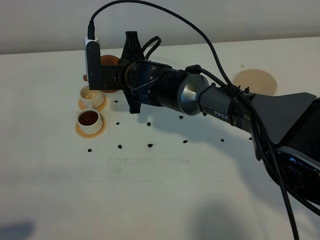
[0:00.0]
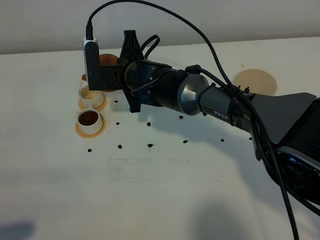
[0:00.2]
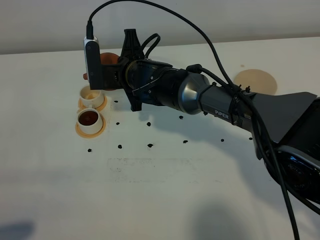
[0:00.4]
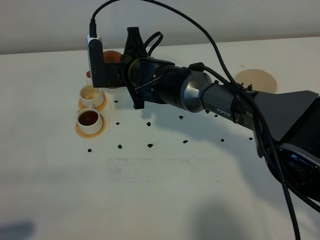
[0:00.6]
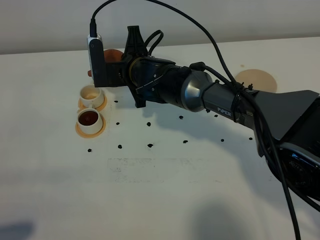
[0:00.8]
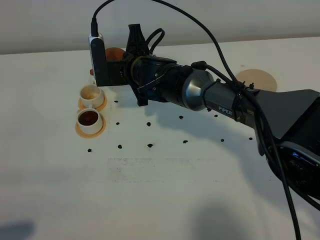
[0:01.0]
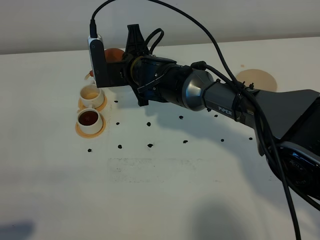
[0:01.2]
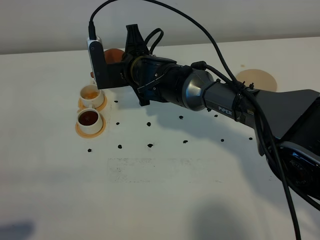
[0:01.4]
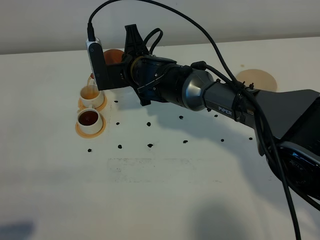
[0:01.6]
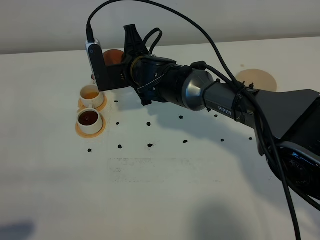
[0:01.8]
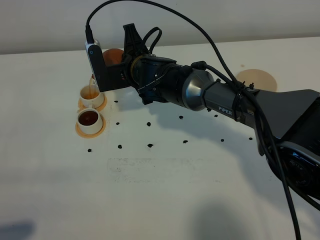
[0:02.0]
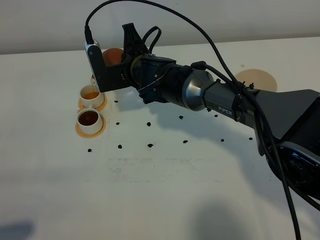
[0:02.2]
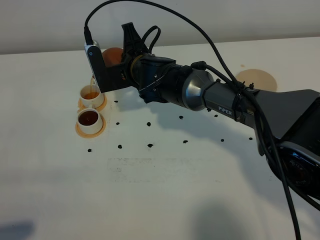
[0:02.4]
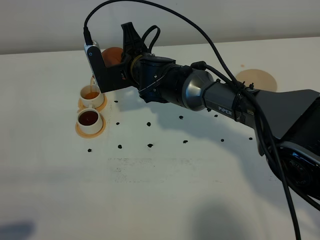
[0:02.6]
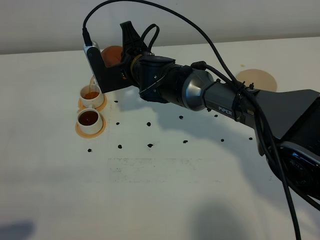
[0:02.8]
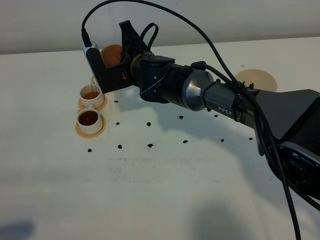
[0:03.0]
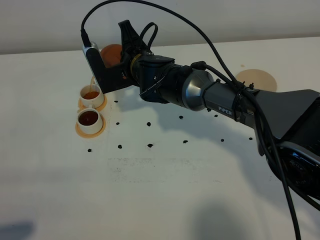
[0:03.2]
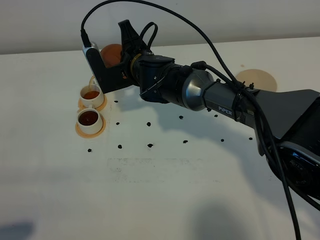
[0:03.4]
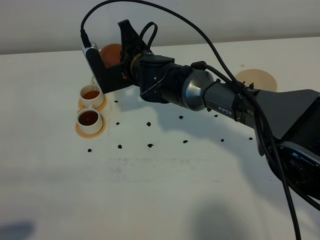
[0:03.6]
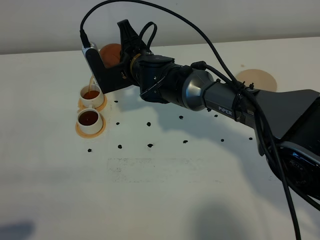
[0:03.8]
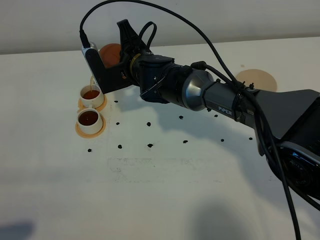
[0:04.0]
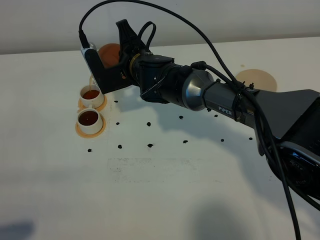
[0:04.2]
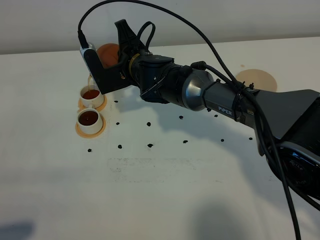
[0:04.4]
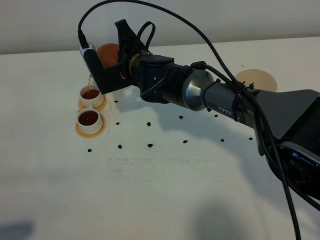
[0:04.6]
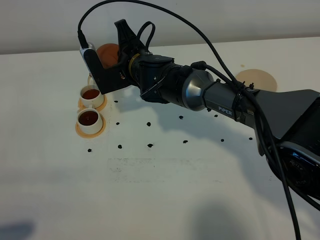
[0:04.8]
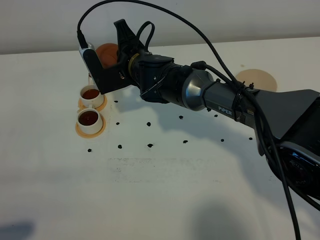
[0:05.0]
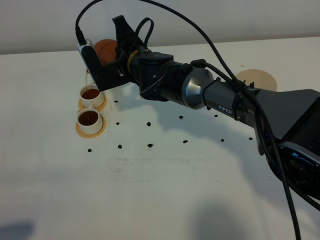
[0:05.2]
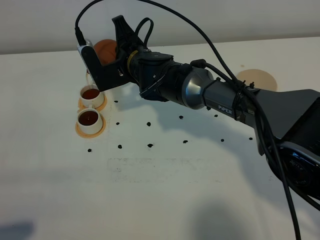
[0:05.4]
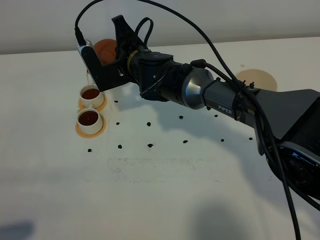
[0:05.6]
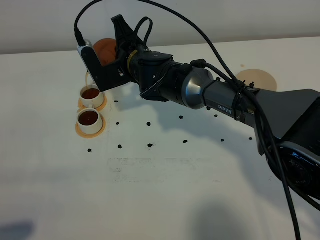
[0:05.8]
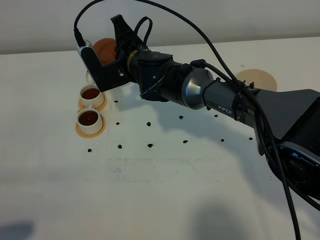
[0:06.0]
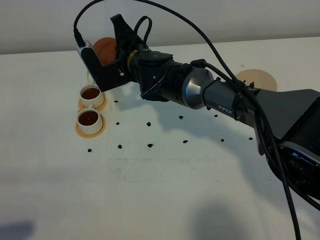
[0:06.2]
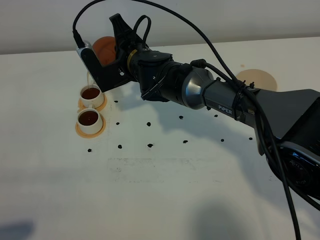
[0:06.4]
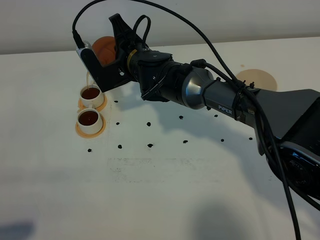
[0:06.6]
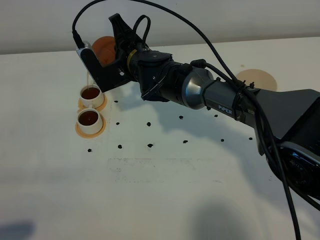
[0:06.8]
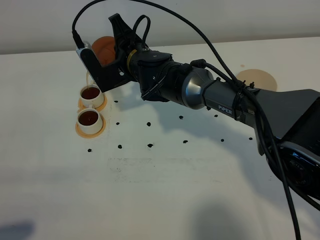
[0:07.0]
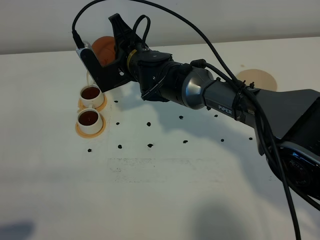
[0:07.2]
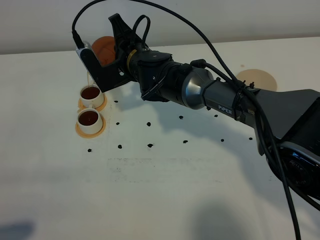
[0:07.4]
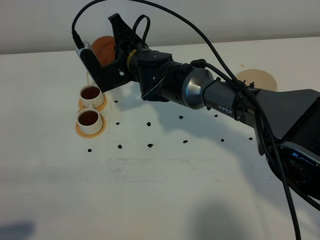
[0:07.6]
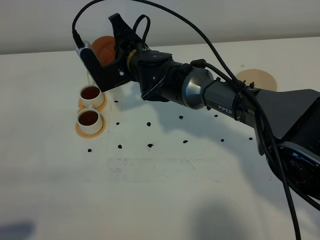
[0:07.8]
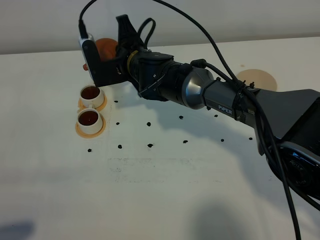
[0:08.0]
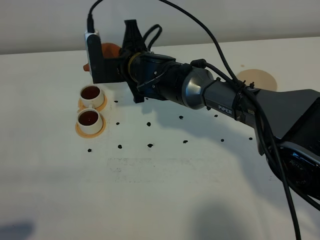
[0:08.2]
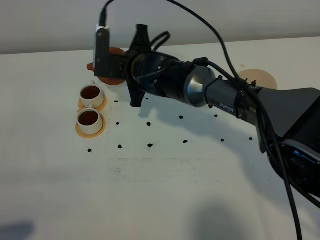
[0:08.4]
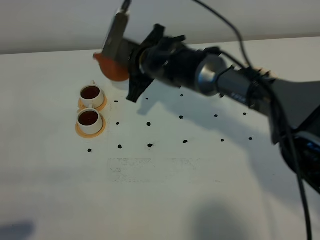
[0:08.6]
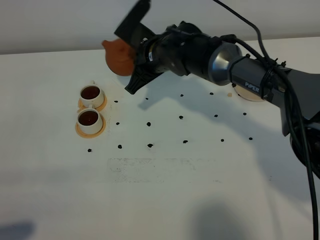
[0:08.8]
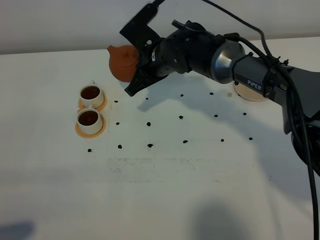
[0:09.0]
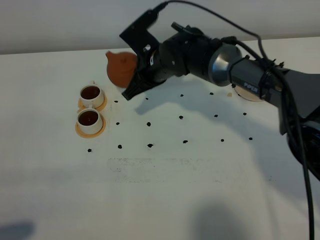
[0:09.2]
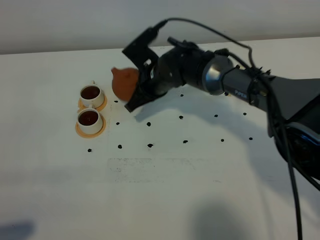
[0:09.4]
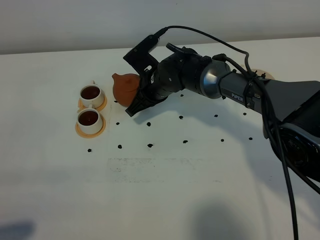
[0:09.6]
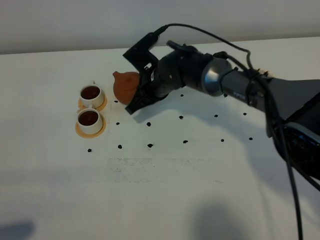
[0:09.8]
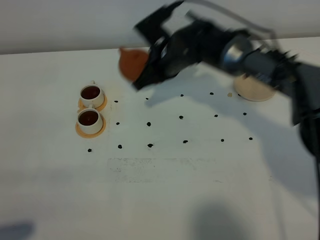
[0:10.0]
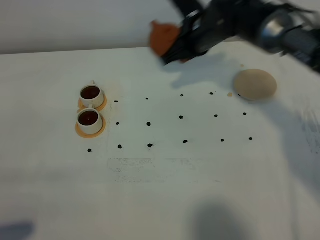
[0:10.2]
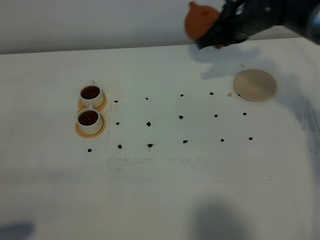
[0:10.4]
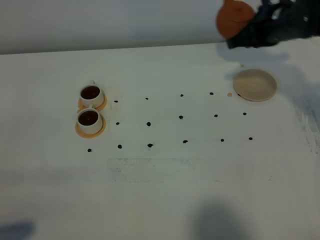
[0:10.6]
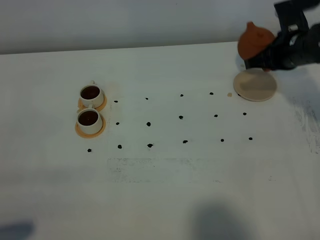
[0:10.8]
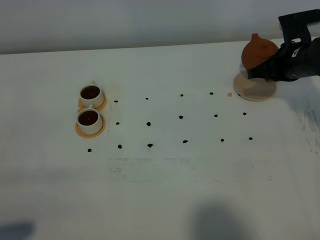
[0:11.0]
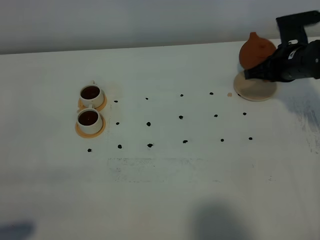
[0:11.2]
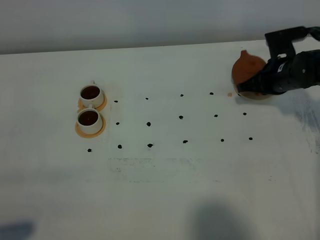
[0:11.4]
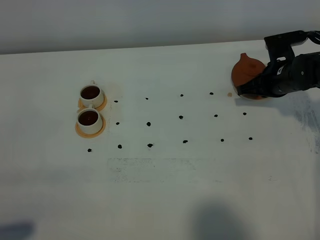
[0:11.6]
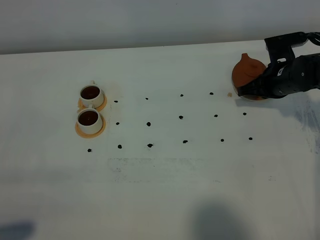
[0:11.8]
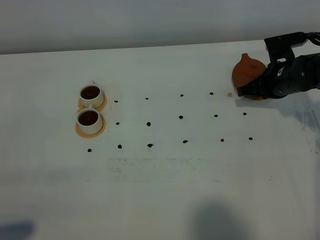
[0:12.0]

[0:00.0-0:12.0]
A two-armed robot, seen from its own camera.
Task of the whole recording: grasp the brown teapot and pour the tea into the two white teacups one by one, put the brown teapot back in its original place.
Step, 0:00.0 to 0:08.0: Pour tea into the teacup with the right gripper.
0:00.0 to 0:01.6: The grippers move only a little.
0:01.6 to 0:03.0: There are only small adjustments of the grippers.
0:03.0 to 0:04.4: Both grippers stay about where they are.
0:04.4 to 0:06.0: Both grippers stay about where they are.
0:06.0 to 0:07.6: The two grippers keep their place.
0:09.0 to 0:10.4: The right gripper heads to the right, covering roughly 15 cm.
0:10.4 to 0:12.0: The right gripper shifts approximately 15 cm downward and to the right.

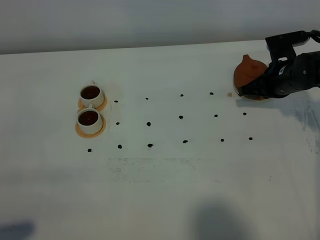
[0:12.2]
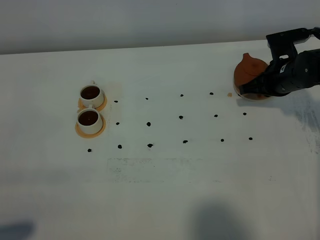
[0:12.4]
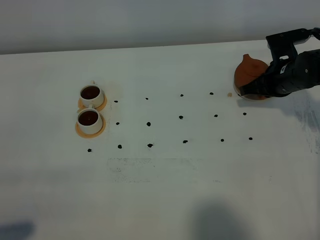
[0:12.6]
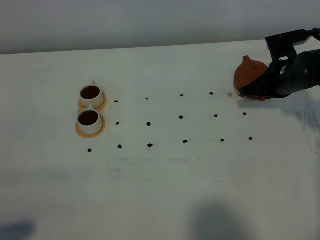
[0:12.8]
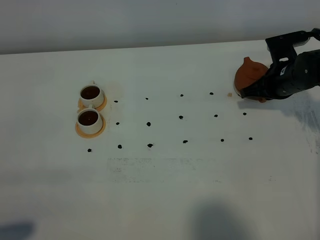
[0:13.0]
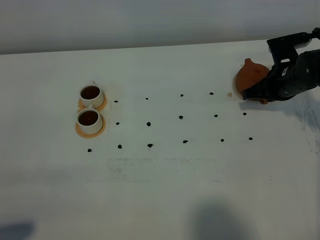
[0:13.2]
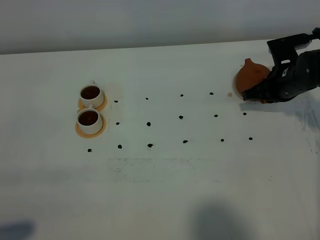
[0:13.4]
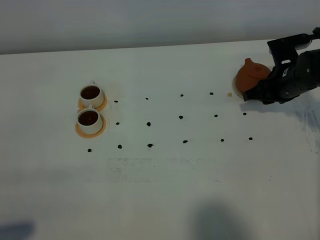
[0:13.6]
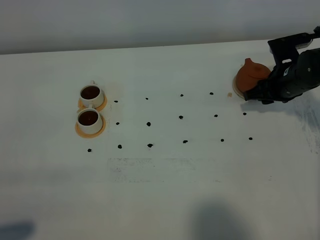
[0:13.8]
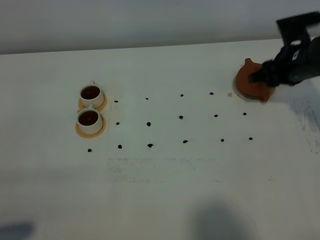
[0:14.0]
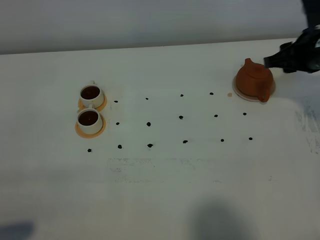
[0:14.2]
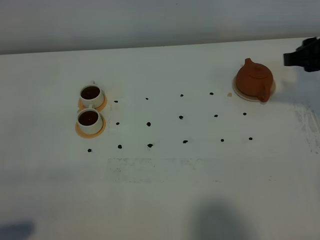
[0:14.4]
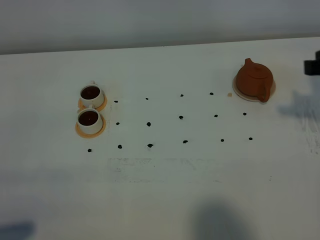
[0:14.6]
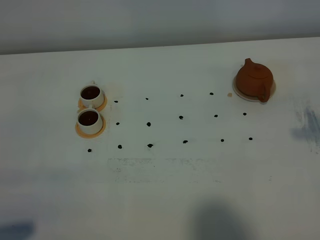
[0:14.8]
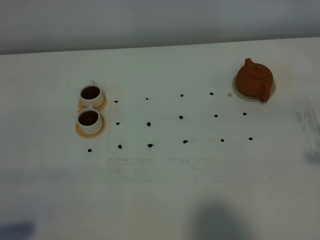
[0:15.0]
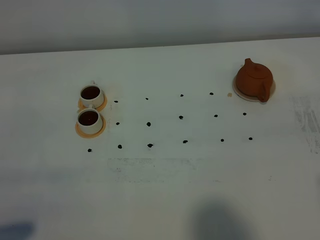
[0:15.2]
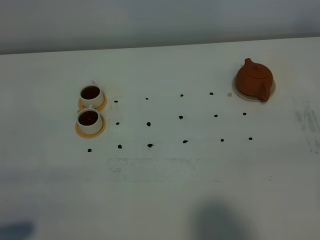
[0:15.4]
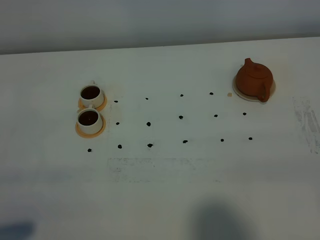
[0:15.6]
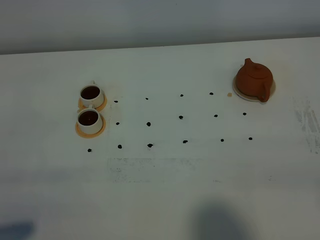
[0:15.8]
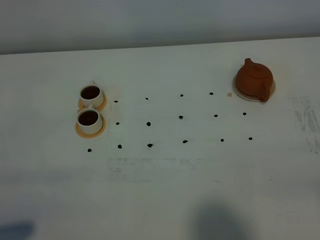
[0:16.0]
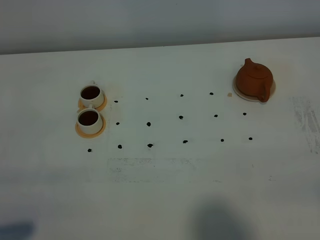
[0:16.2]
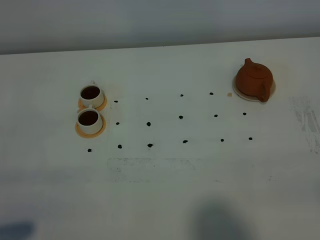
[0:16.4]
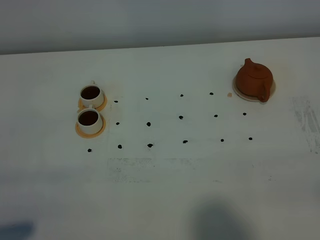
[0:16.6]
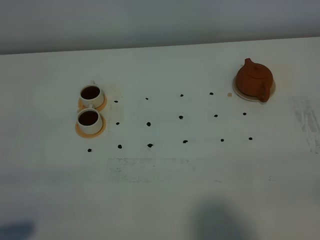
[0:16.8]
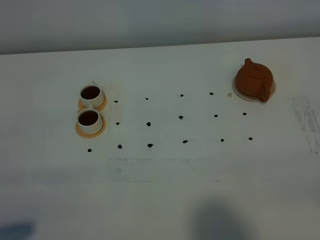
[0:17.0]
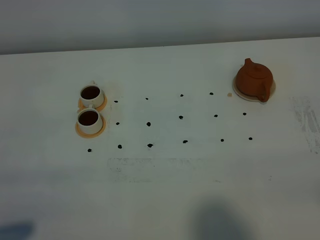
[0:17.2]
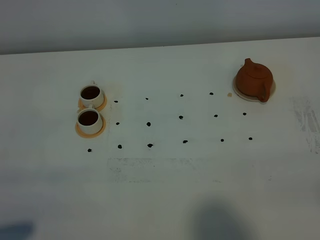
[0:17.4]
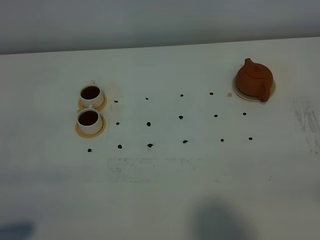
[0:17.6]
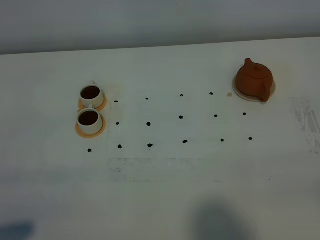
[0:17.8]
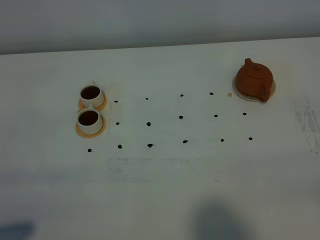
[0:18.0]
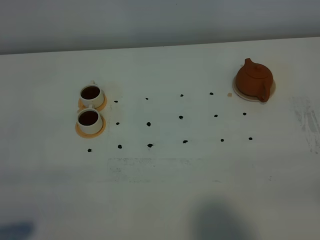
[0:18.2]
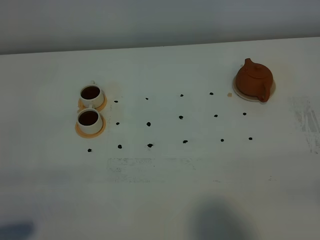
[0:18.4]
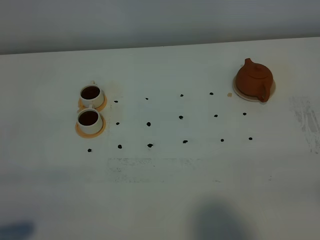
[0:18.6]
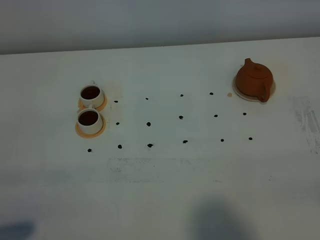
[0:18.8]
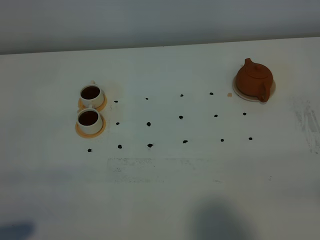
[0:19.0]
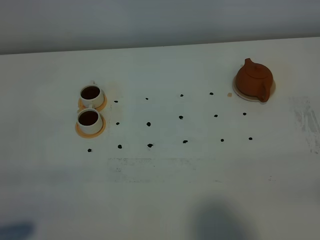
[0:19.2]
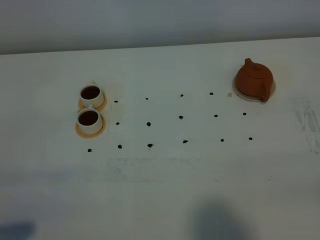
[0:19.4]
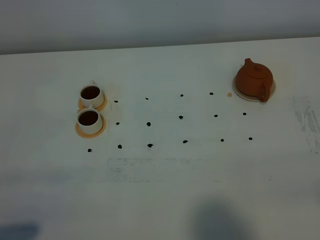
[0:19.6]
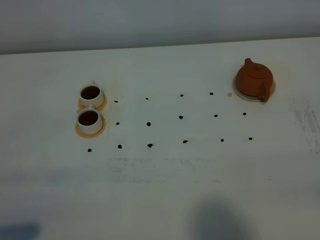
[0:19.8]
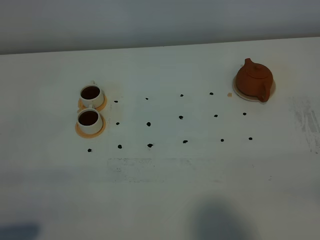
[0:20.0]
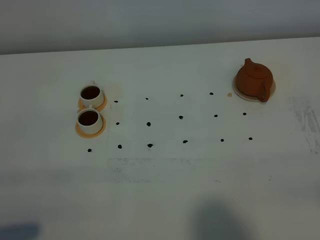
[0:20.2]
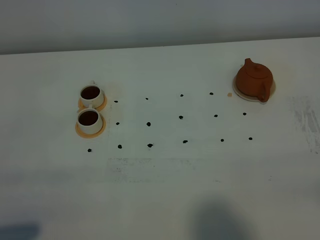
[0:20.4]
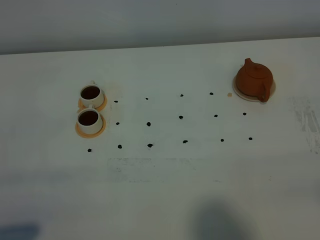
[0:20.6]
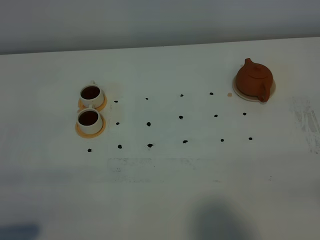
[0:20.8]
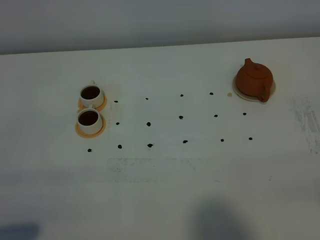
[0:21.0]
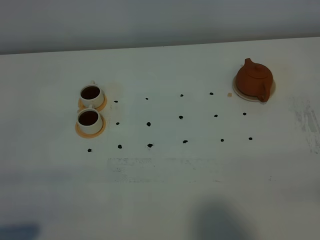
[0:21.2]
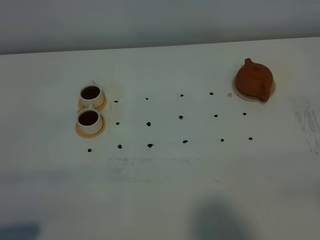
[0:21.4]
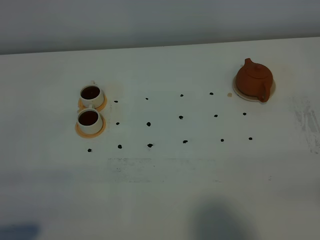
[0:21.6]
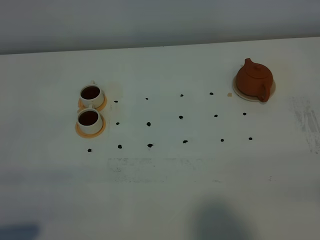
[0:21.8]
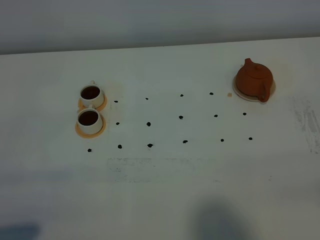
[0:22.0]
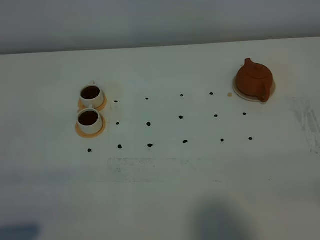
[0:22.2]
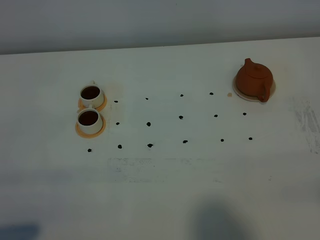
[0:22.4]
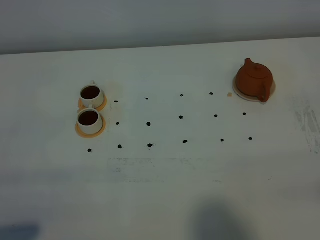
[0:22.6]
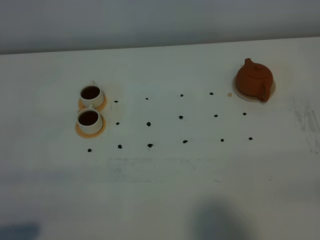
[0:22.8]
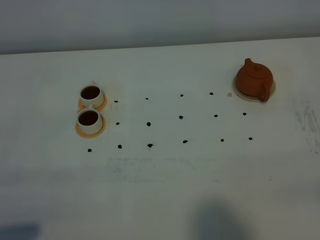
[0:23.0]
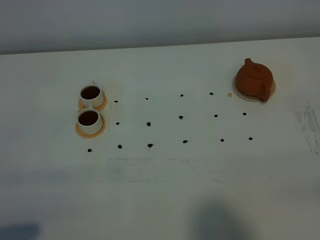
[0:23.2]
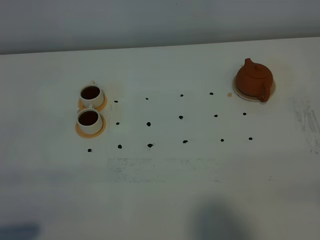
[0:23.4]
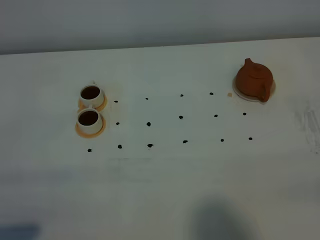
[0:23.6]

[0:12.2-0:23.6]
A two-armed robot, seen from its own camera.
Task of the whole recording: grasp the brown teapot and pour the tea into the two white teacups one by one, put the brown teapot back in its original place.
0:12.2 to 0:13.6: The right gripper opens.
0:13.6 to 0:15.0: The right gripper goes approximately 35 cm backward and upward.
0:16.4 to 0:23.6: Both grippers stay put.
